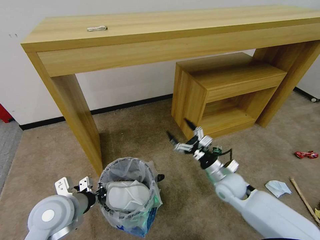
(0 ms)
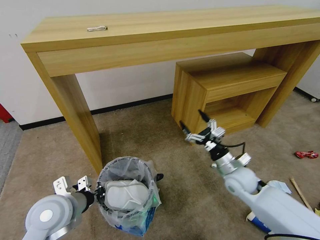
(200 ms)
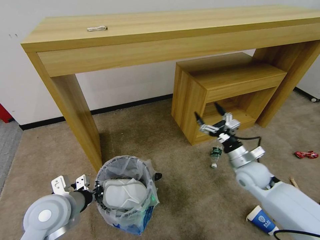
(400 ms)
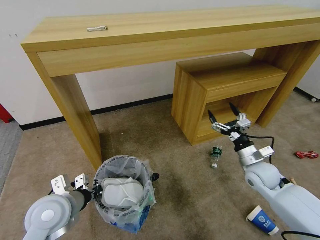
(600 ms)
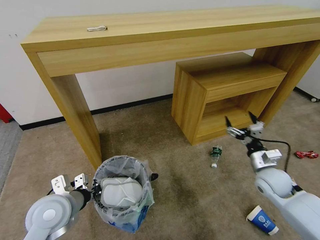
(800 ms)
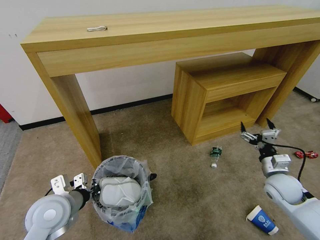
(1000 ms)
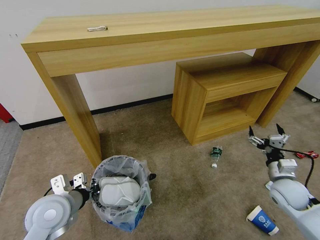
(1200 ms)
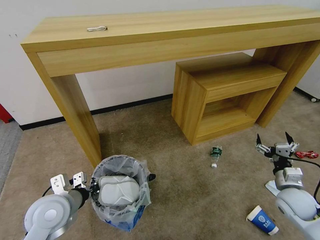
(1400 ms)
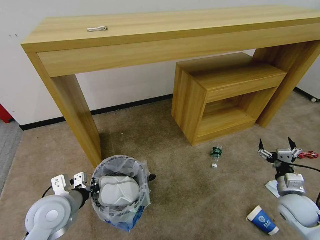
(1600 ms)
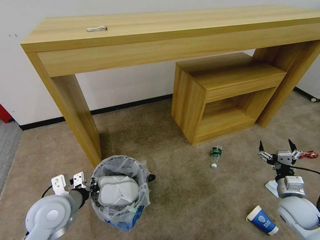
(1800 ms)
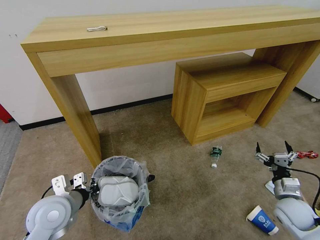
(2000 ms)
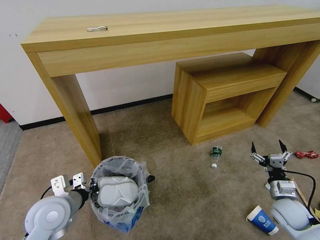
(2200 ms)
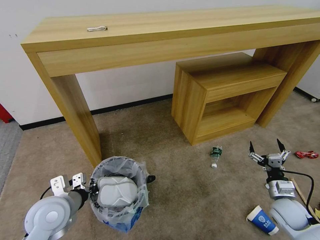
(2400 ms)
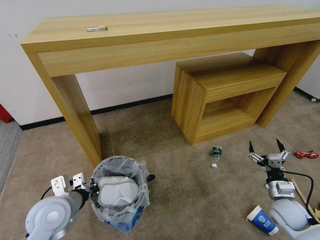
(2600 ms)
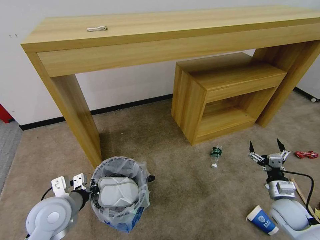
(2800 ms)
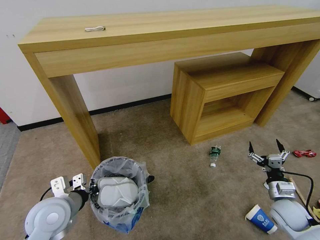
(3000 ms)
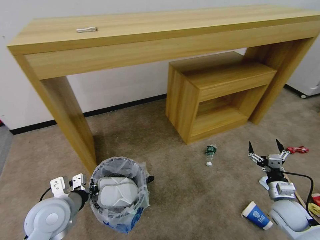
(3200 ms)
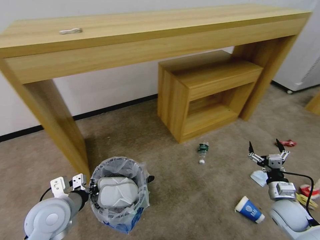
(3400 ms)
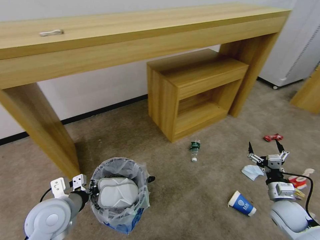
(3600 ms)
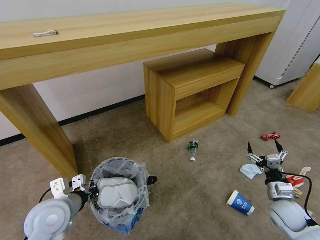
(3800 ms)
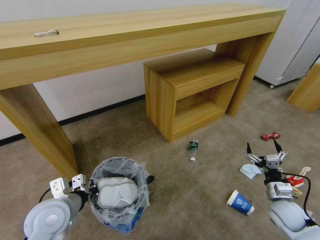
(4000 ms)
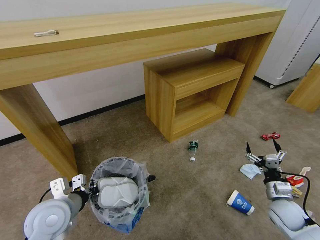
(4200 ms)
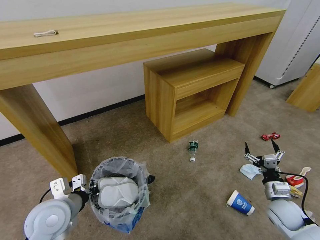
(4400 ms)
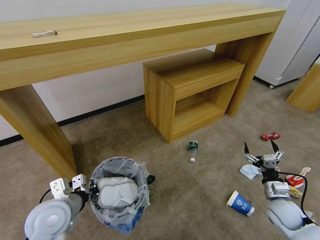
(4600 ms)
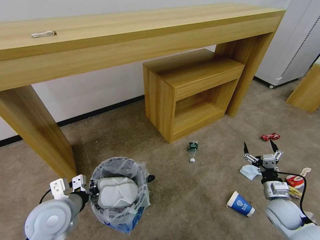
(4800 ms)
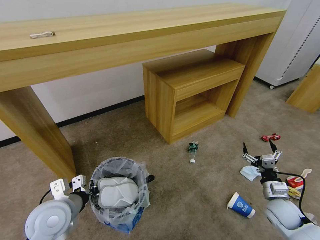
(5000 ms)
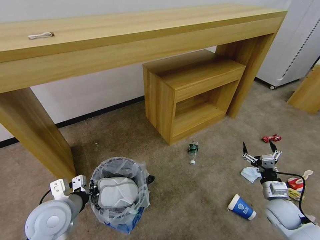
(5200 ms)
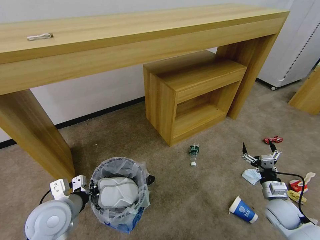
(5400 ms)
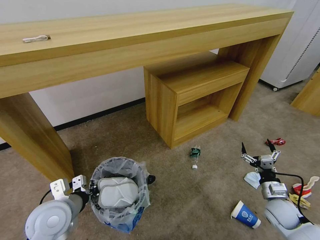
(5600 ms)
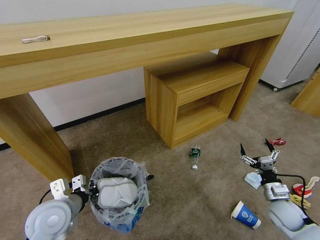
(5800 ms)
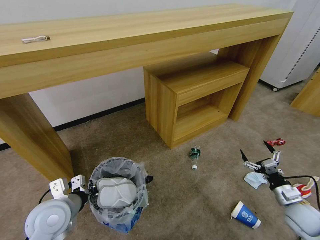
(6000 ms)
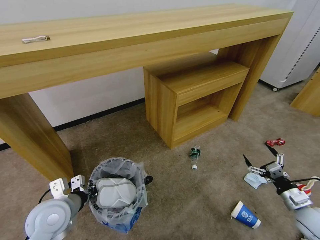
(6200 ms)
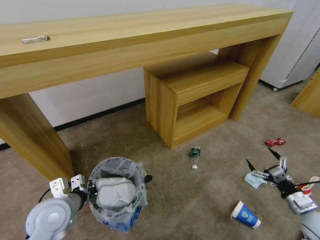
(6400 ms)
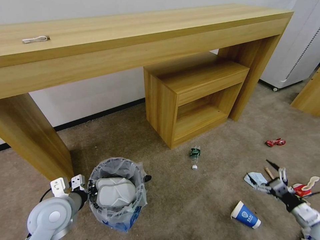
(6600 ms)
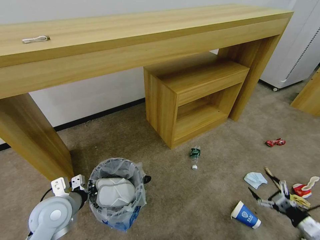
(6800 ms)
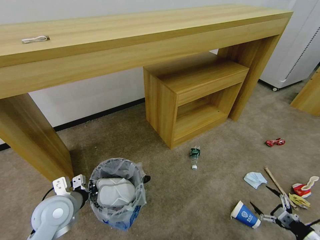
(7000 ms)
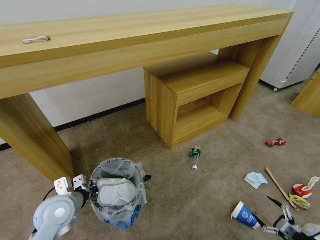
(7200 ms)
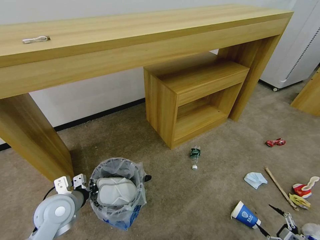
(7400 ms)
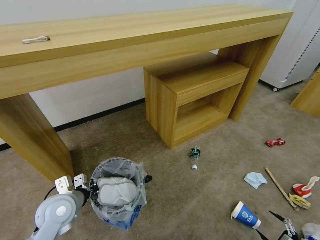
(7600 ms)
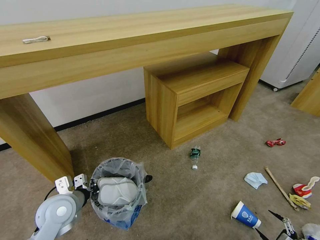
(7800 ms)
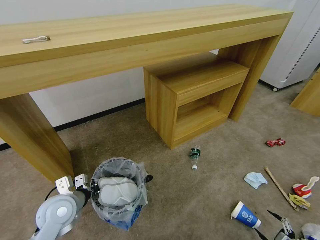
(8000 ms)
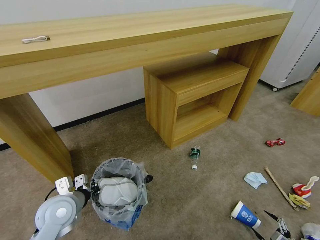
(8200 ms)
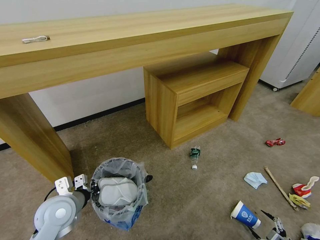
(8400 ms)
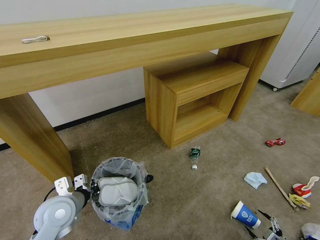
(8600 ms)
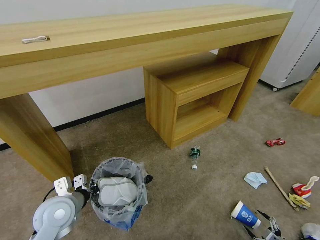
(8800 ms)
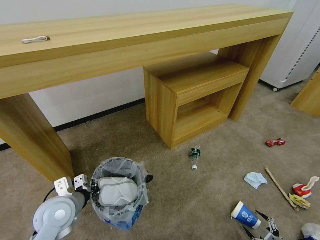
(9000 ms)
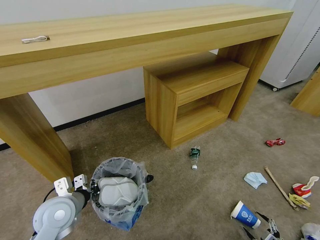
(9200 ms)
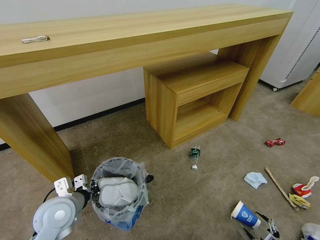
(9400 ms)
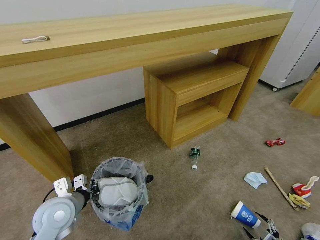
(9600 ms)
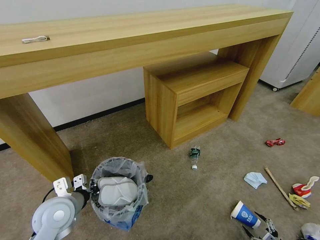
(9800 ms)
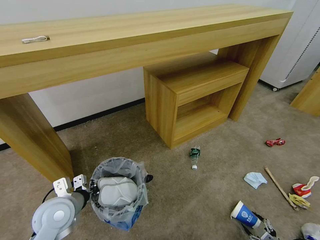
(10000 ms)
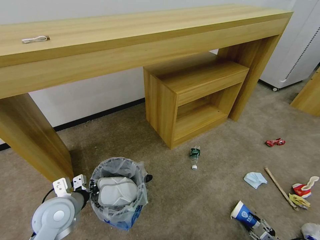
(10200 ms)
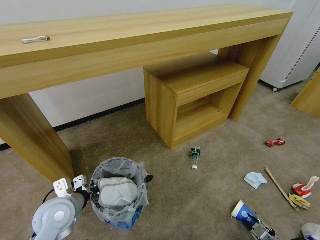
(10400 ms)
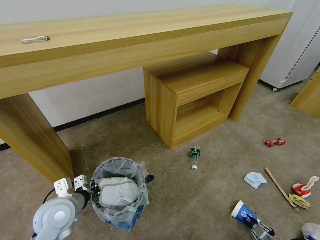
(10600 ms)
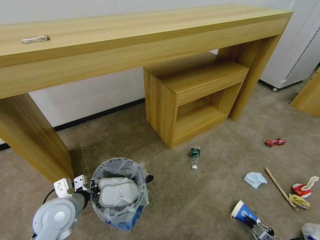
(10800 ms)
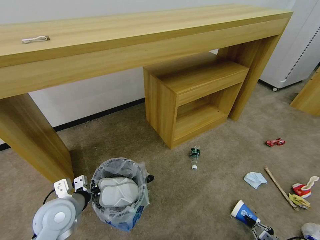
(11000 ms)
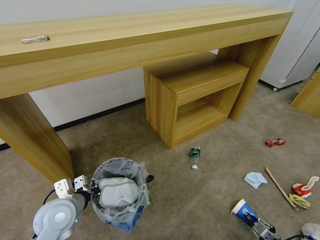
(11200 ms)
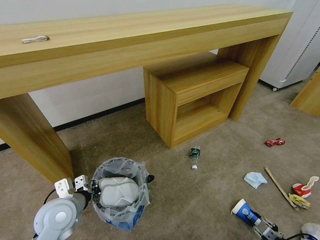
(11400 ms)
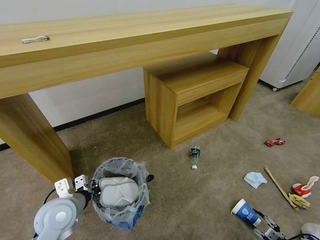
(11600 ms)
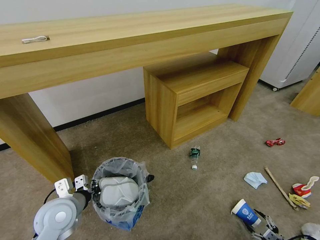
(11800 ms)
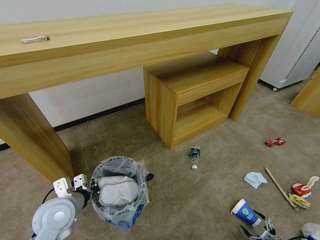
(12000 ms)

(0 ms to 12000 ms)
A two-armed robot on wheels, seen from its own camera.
Task of the whole recording: Pick up the trash bin and place the garbage on the floor into it.
0 ms - 1600 ms: The right gripper goes roughly 20 cm to the right.
1600 ms - 3000 ms: The grippers move only a little.
6000 ms - 7600 ms: The right gripper heads backward and to the right, covering approximately 25 cm.
7600 ms - 9000 ms: The right gripper heads downward, covering about 5 cm.
10400 ms - 12000 ms: The right gripper opens.

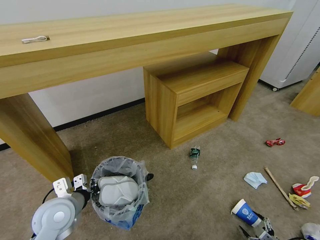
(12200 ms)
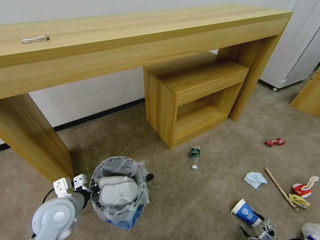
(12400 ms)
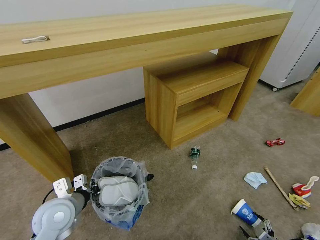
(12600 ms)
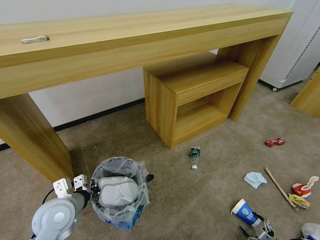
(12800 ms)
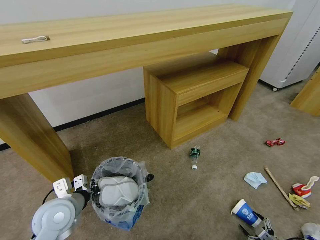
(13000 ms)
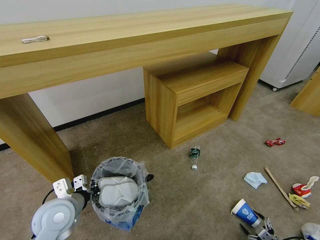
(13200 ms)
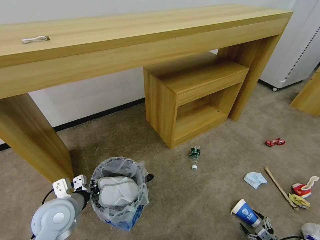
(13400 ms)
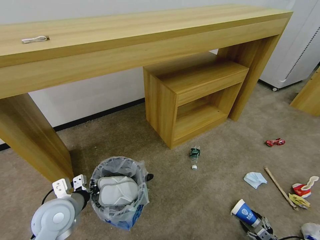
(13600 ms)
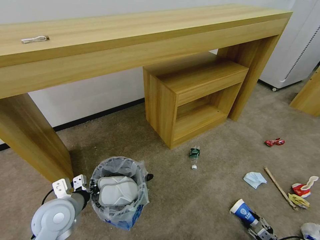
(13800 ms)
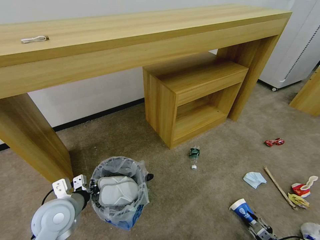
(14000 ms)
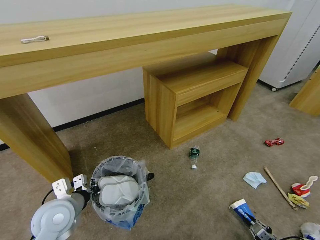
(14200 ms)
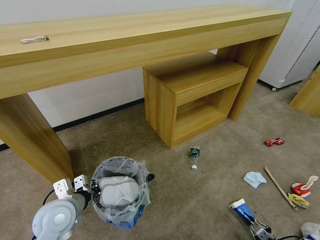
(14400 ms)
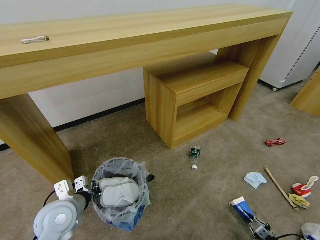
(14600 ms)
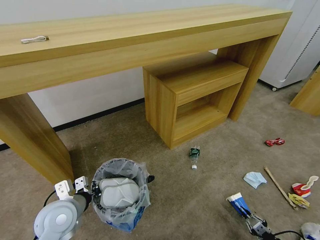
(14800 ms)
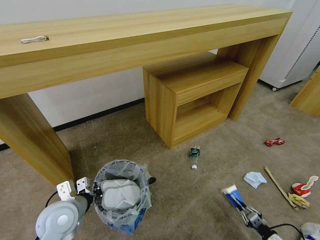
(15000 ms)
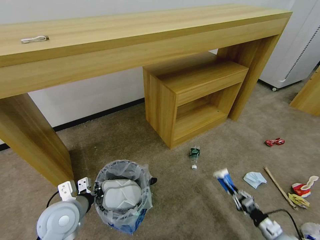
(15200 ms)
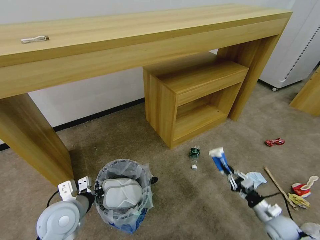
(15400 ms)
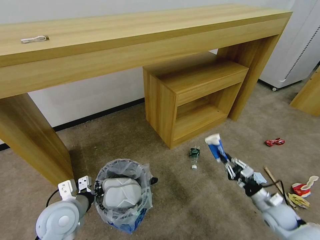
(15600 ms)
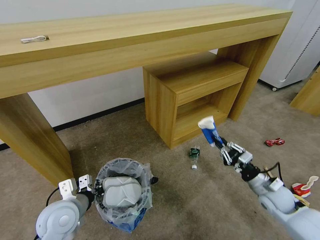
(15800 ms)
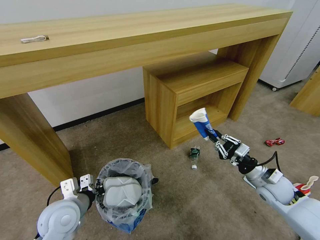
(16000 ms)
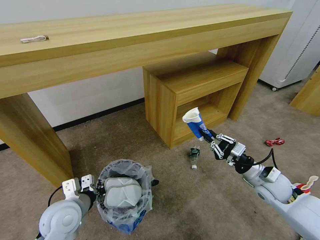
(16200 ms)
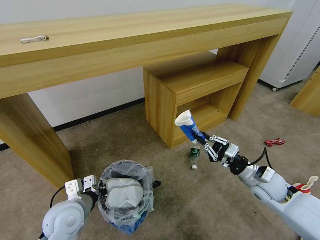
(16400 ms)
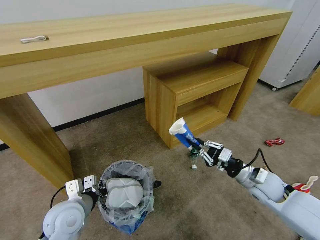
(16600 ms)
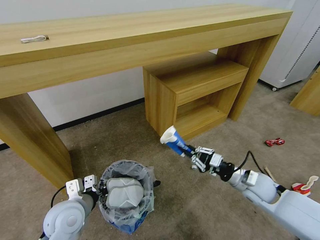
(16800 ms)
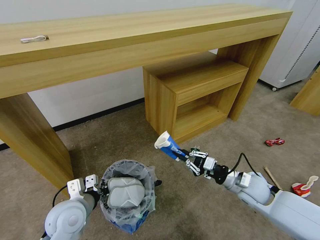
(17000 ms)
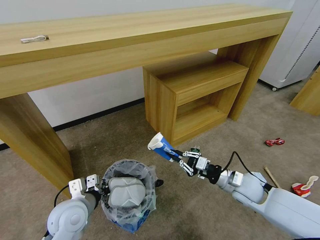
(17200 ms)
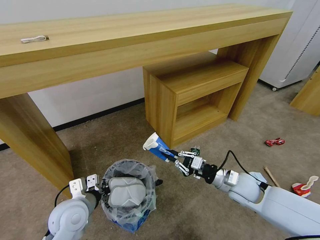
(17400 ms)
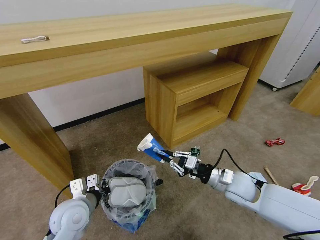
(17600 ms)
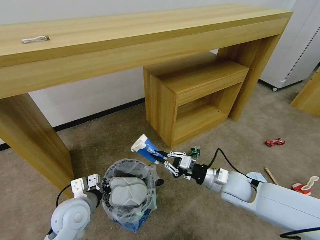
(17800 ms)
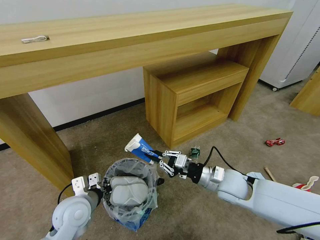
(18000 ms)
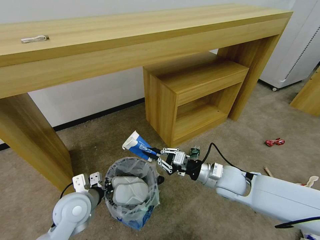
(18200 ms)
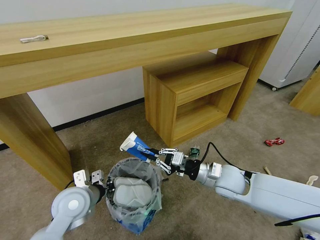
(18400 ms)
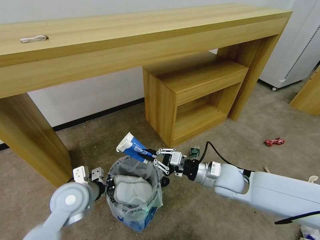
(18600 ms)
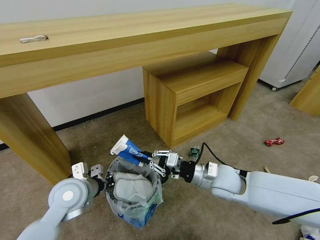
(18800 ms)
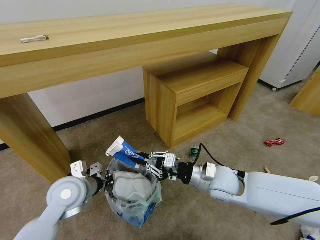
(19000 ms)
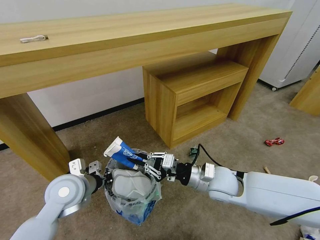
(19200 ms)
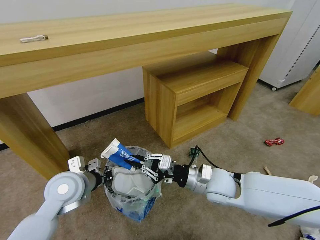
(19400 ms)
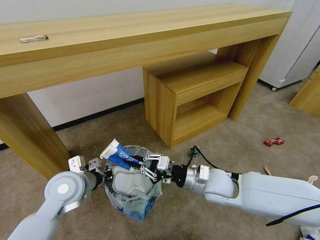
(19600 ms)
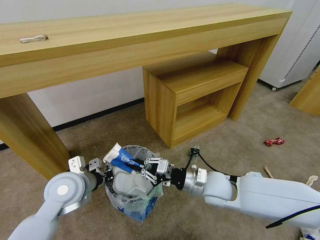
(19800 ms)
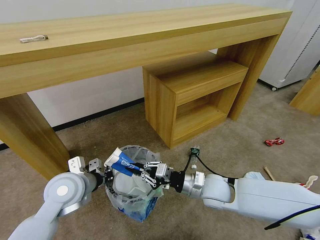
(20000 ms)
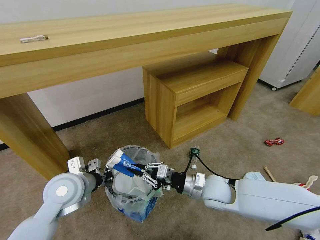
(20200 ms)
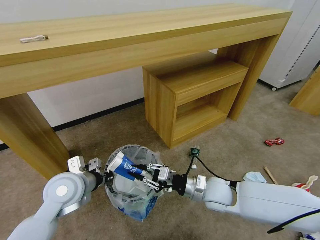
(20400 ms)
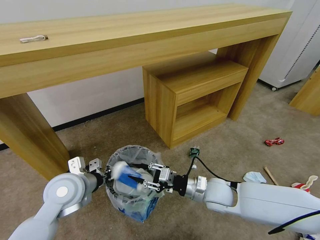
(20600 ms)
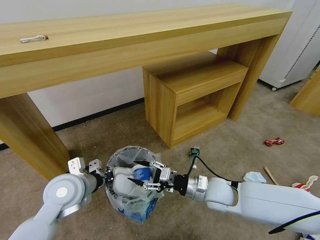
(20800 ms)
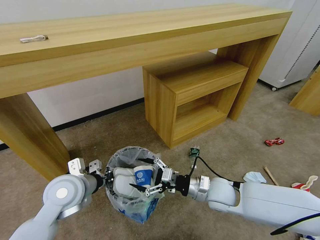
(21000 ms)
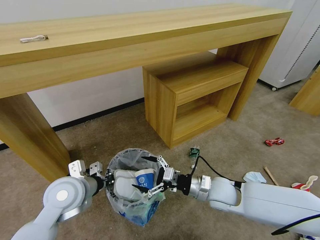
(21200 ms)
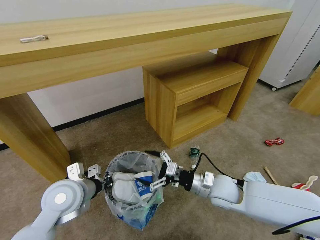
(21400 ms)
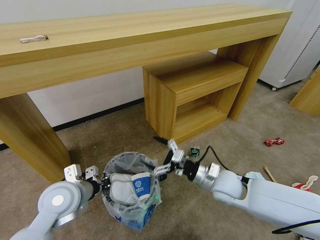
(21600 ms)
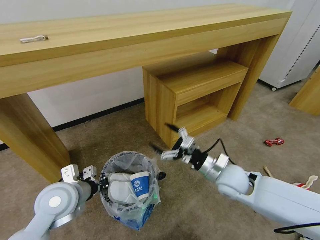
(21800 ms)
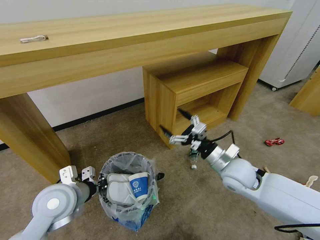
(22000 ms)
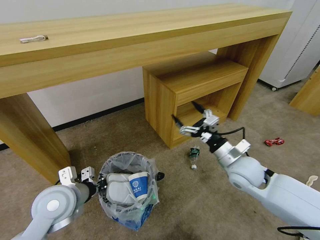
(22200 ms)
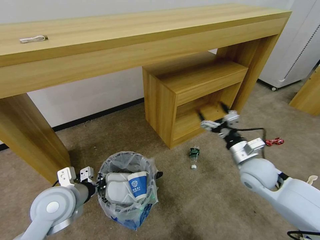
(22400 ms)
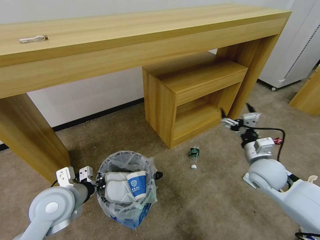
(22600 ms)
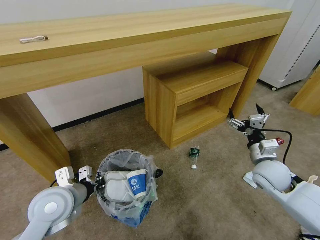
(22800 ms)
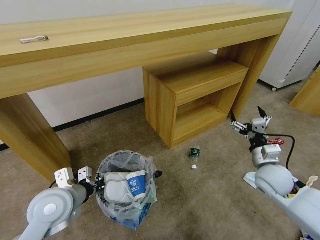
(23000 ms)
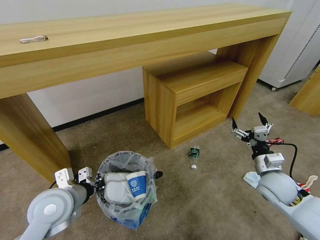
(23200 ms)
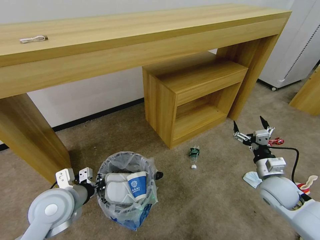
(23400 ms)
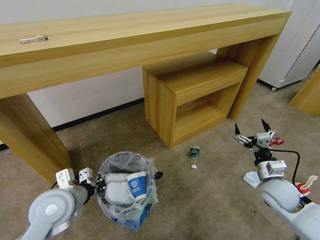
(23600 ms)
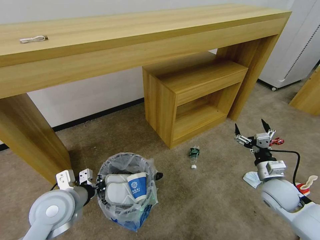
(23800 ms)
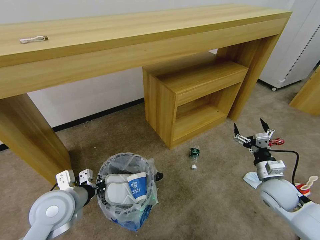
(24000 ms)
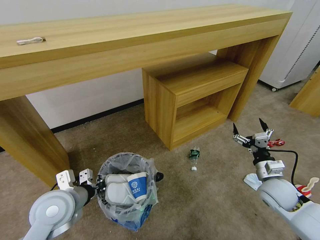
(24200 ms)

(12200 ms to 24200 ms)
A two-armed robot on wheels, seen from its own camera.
Task of the whole recording: Pick up the trash bin and place the garbage on the floor into it.
12200 ms - 13800 ms: The right gripper closes.
13800 ms - 15200 ms: The right gripper heads forward, to the left and upward, covering roughly 10 cm, and closes.
15200 ms - 16600 ms: The right gripper heads upward, forward and to the left, covering about 30 cm.
16600 ms - 18200 ms: The right gripper moves to the left, some 15 cm.
18200 ms - 19800 ms: The right gripper ends up some 5 cm from where it was. Meanwhile the left gripper shifts roughly 5 cm upward.
19800 ms - 21200 ms: The right gripper opens its fingers.
21200 ms - 22600 ms: The right gripper shifts roughly 15 cm to the right and upward.
22600 ms - 24200 ms: The right gripper shifts roughly 10 cm downward and to the right.
